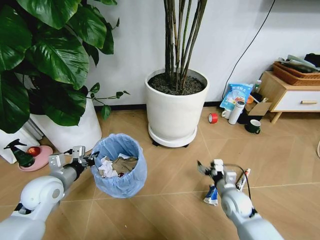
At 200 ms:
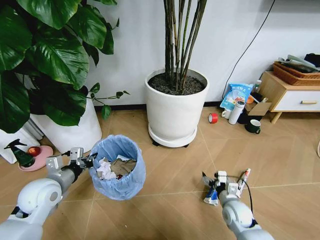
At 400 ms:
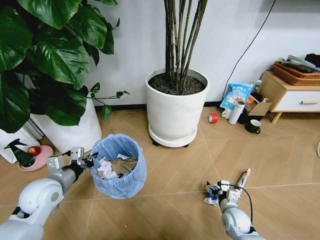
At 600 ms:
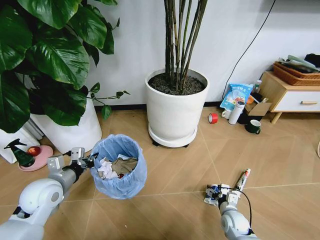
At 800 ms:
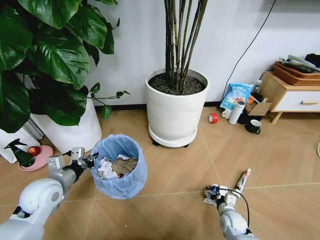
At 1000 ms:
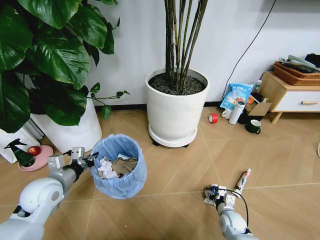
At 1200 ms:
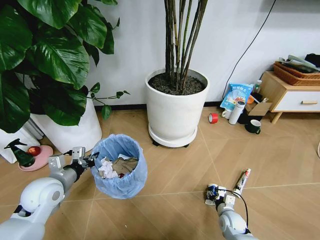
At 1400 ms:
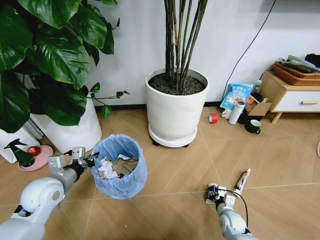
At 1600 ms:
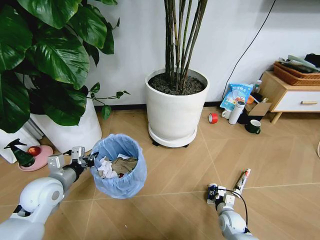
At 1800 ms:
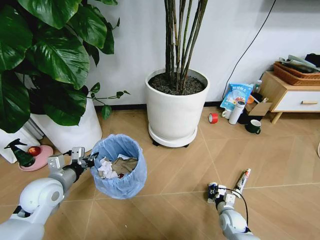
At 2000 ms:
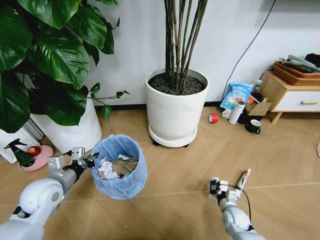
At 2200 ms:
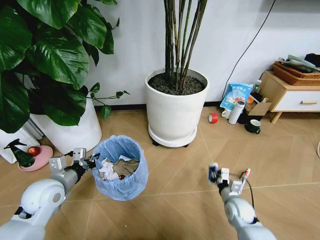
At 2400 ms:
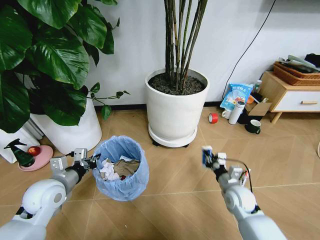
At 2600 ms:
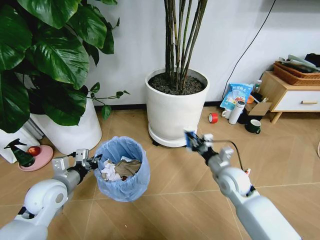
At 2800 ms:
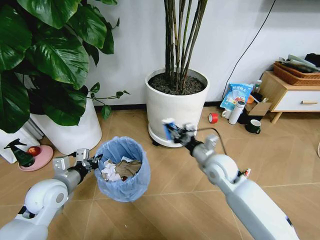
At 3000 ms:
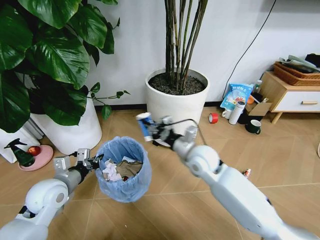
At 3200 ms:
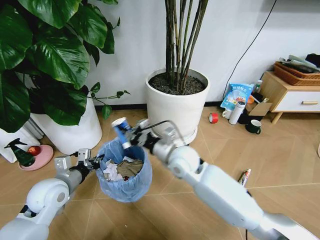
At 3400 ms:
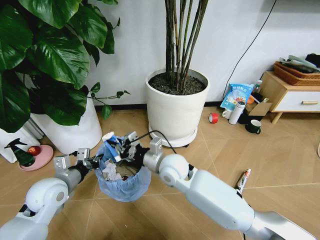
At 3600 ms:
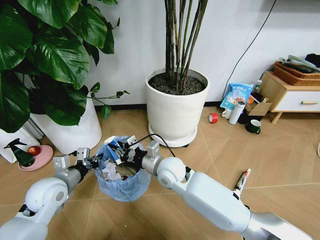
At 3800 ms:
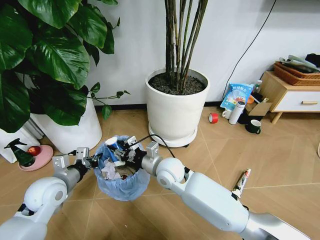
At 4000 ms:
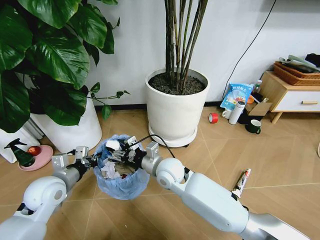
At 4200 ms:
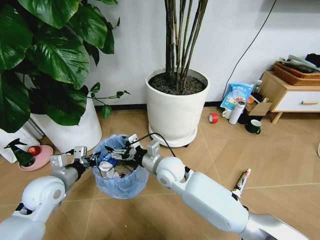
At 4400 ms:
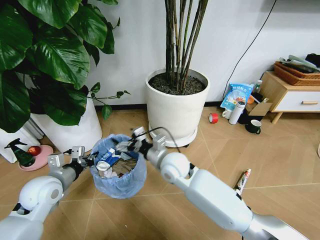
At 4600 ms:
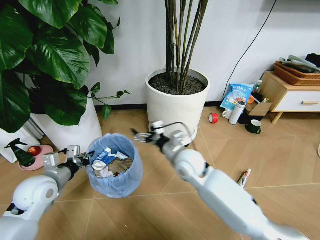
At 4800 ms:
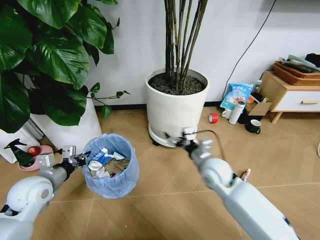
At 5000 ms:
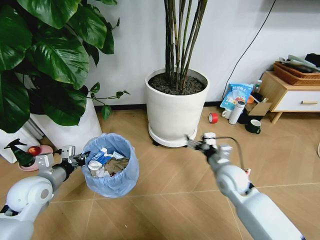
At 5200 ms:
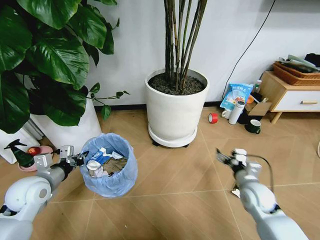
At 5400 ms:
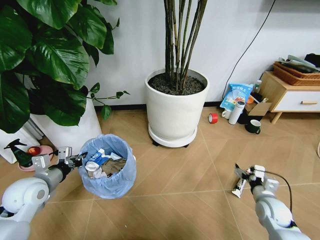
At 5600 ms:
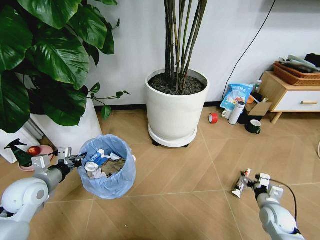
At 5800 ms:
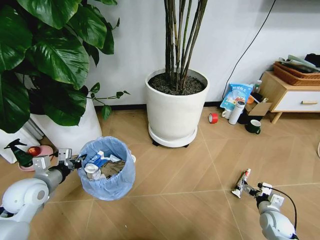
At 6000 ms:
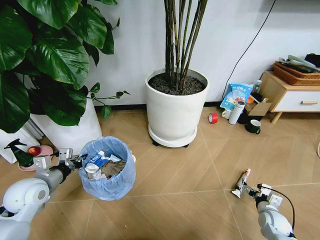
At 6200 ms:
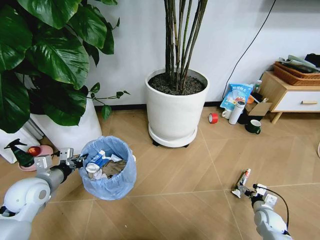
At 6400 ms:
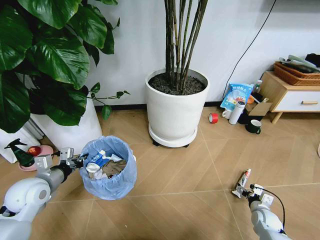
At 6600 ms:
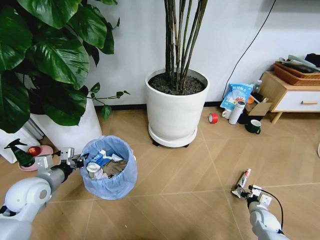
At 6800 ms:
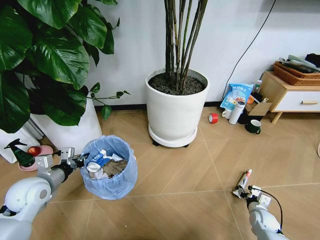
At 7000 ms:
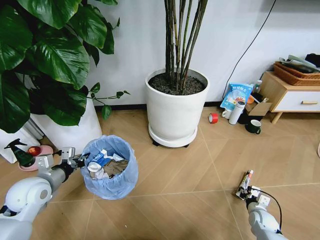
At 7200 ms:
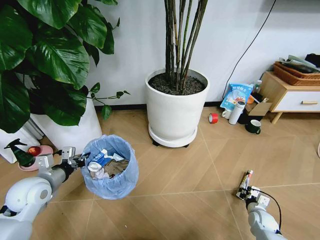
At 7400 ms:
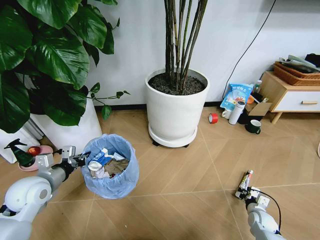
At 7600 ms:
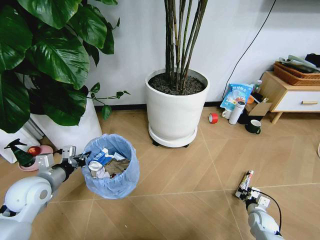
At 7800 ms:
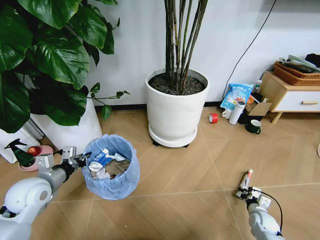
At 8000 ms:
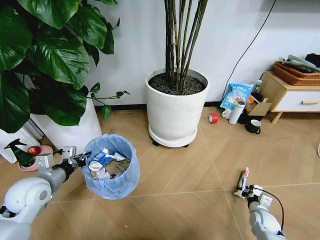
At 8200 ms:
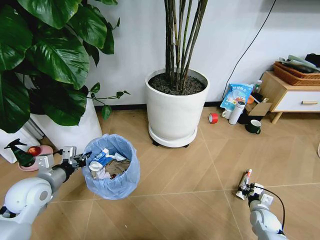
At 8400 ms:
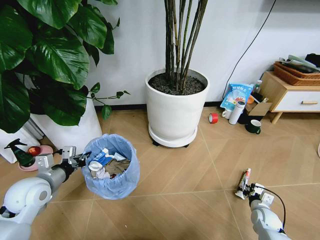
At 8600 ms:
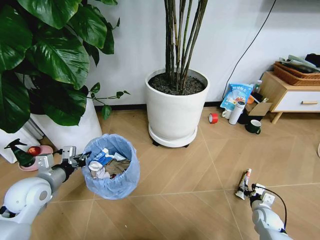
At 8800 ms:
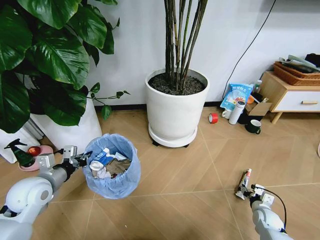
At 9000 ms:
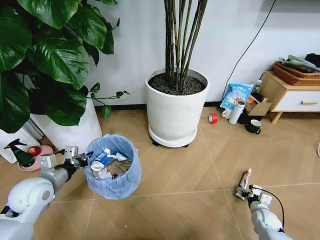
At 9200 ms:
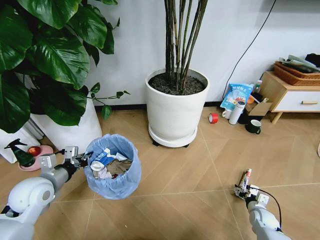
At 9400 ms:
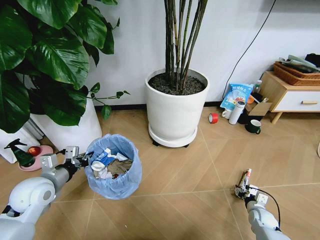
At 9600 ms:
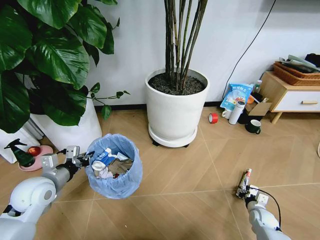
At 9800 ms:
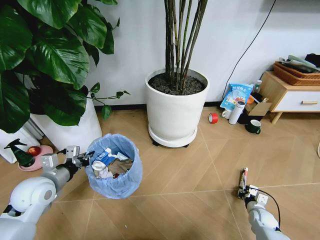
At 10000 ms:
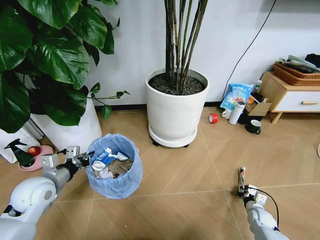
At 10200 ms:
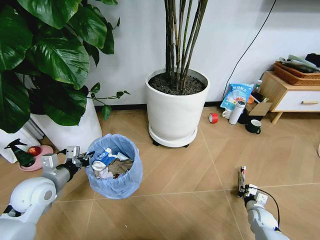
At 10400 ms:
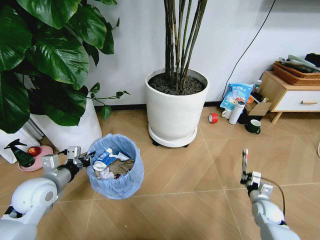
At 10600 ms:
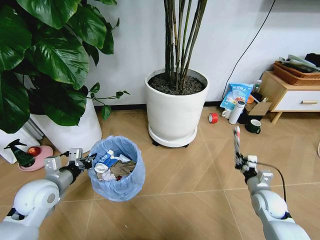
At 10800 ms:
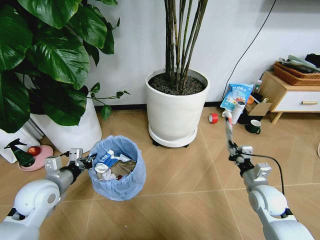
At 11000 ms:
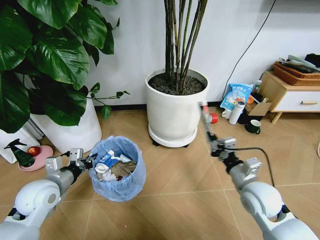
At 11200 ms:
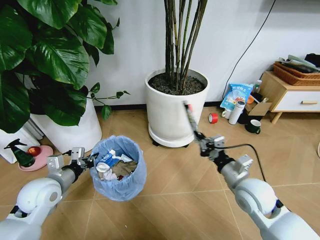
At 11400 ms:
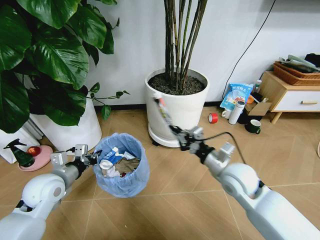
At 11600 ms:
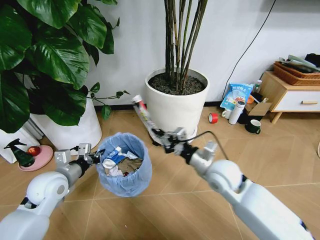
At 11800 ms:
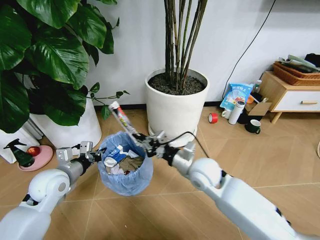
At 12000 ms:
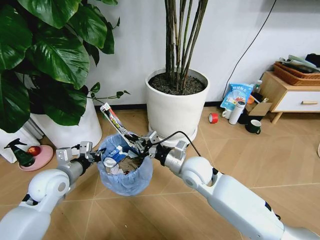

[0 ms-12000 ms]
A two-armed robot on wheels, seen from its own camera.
Task of the whole recording: Pick up the trash bin and place the garbage on the floor into it.
0 ms to 1600 ms: The right gripper is displaced downward by roughly 15 cm, and closes.
1600 ms to 3000 ms: The right gripper shifts approximately 35 cm upward and to the left.
3000 ms to 4400 ms: The right gripper goes approximately 10 cm to the left, and opens its fingers.
4400 ms to 6000 ms: The right gripper shifts approximately 50 cm to the right and downward.
6000 ms to 7600 ms: The right gripper shifts by about 5 cm, and closes.
7600 ms to 9000 ms: The right gripper opens up.
9000 ms to 10400 ms: The right gripper heads upward, covering roughly 5 cm, and closes.
10400 ms to 12000 ms: The right gripper is displaced to the left and upward by approximately 40 cm.

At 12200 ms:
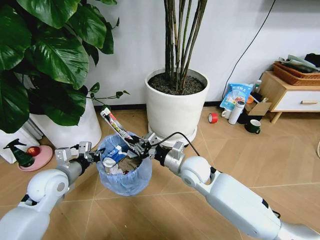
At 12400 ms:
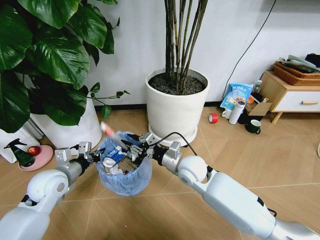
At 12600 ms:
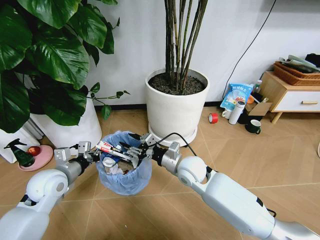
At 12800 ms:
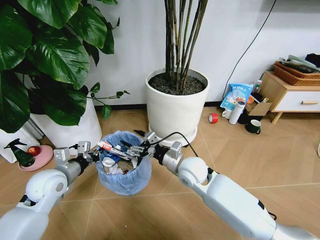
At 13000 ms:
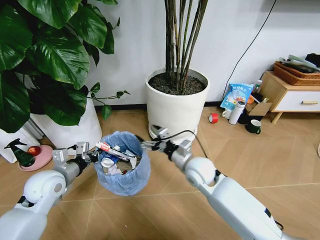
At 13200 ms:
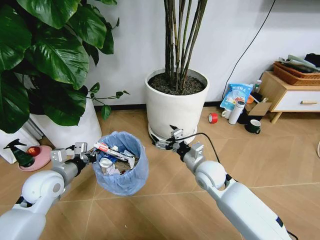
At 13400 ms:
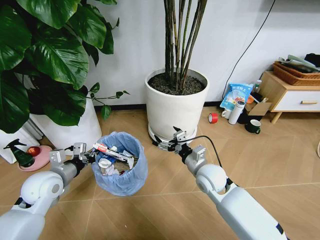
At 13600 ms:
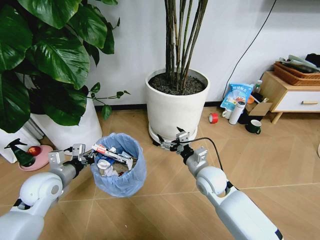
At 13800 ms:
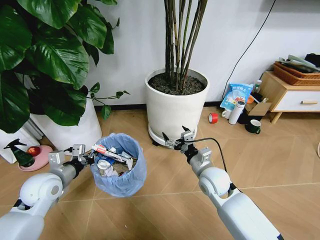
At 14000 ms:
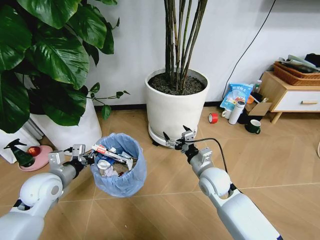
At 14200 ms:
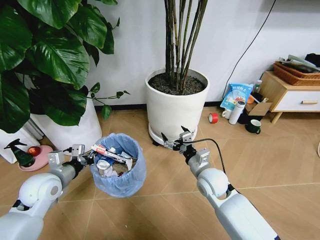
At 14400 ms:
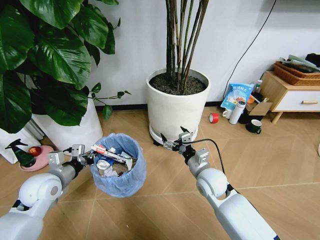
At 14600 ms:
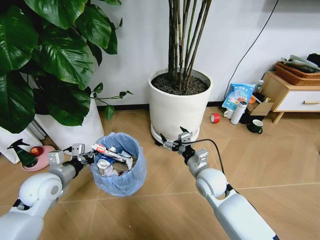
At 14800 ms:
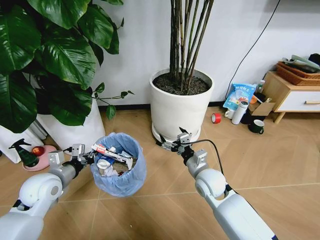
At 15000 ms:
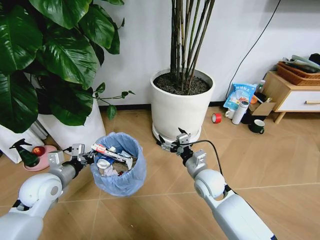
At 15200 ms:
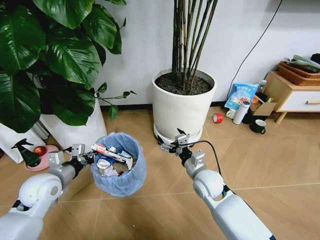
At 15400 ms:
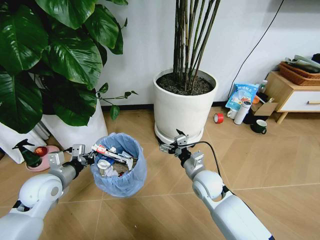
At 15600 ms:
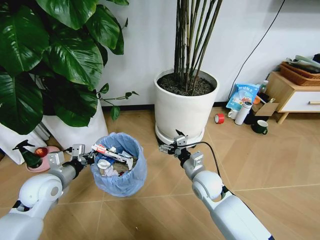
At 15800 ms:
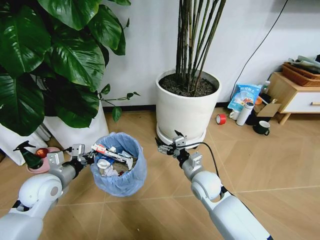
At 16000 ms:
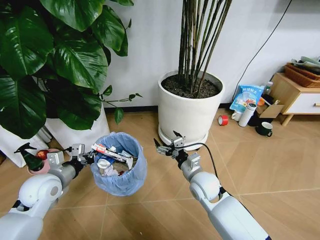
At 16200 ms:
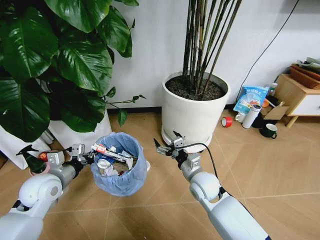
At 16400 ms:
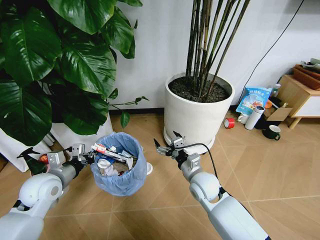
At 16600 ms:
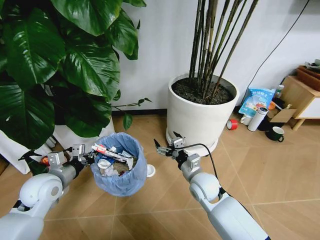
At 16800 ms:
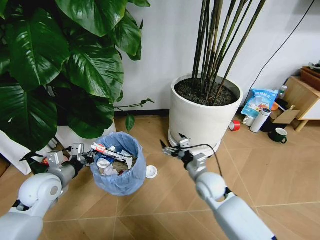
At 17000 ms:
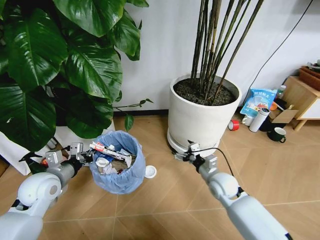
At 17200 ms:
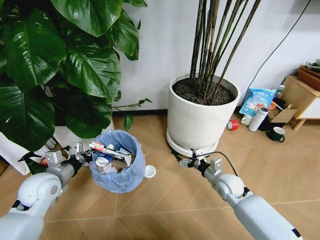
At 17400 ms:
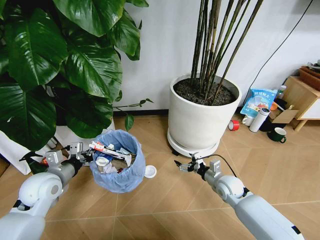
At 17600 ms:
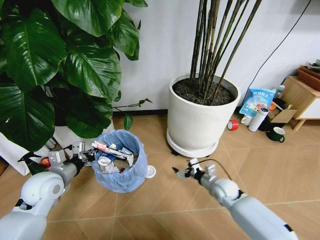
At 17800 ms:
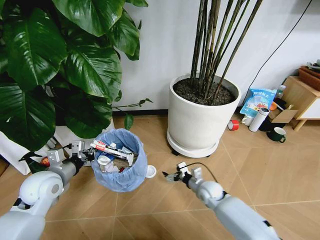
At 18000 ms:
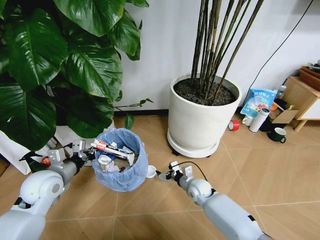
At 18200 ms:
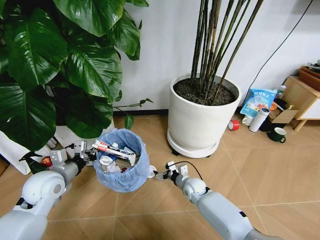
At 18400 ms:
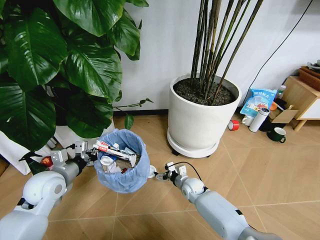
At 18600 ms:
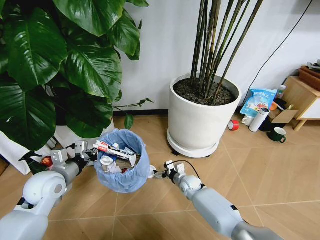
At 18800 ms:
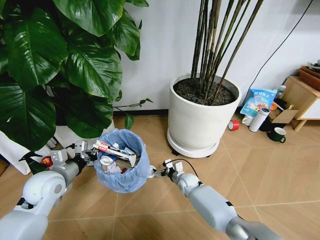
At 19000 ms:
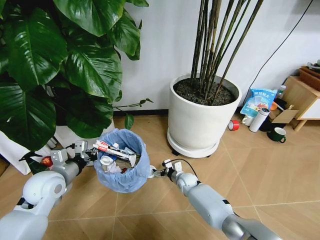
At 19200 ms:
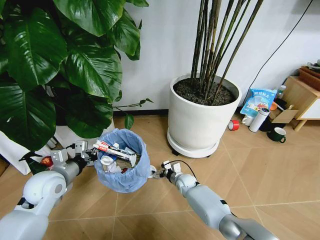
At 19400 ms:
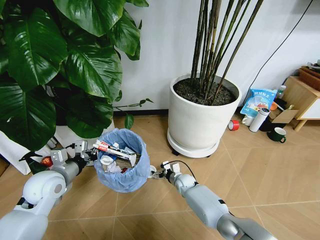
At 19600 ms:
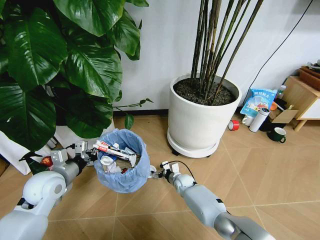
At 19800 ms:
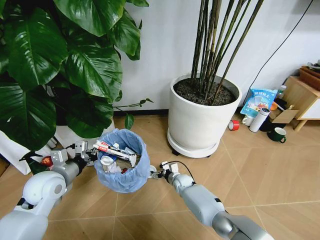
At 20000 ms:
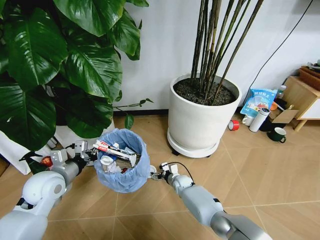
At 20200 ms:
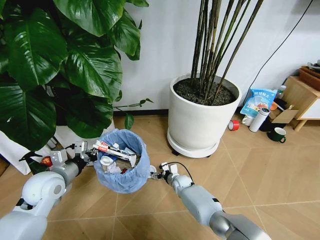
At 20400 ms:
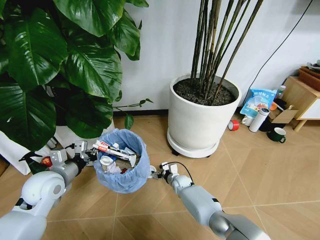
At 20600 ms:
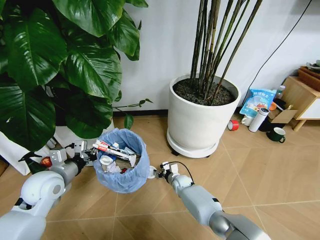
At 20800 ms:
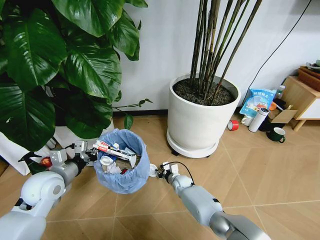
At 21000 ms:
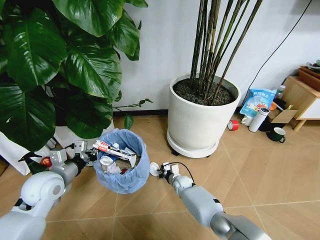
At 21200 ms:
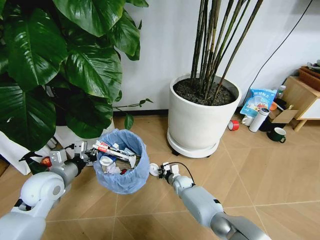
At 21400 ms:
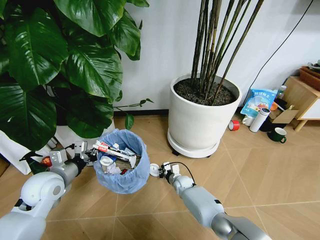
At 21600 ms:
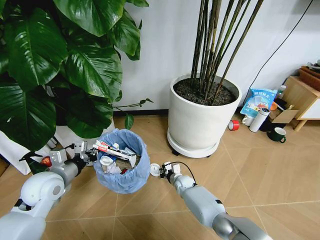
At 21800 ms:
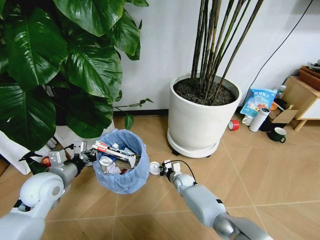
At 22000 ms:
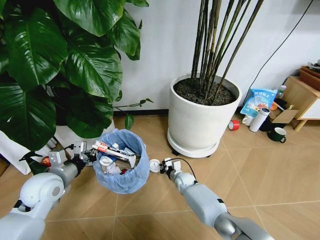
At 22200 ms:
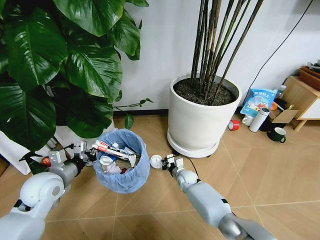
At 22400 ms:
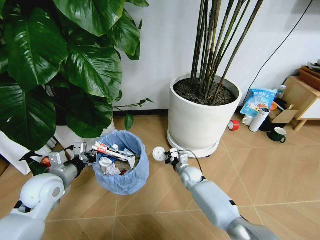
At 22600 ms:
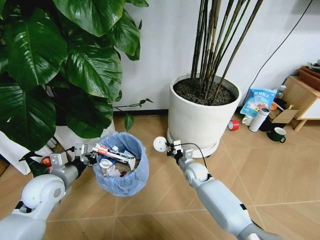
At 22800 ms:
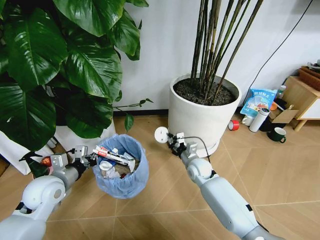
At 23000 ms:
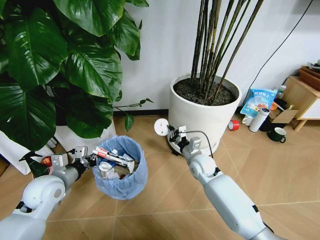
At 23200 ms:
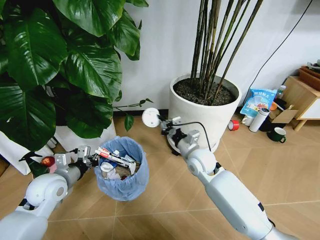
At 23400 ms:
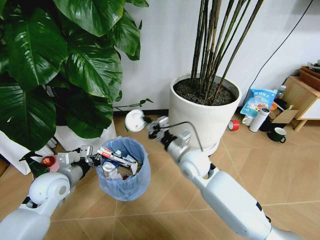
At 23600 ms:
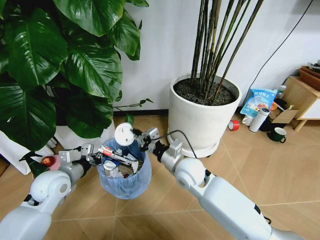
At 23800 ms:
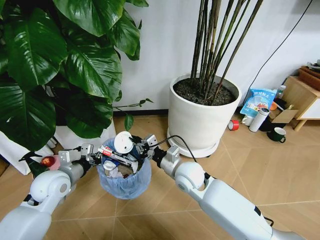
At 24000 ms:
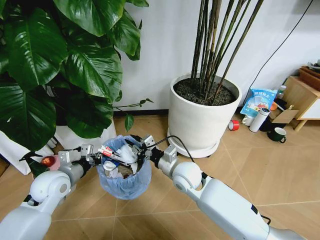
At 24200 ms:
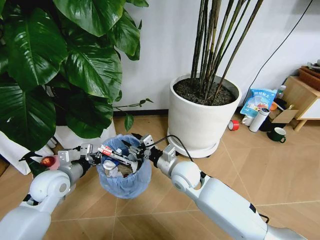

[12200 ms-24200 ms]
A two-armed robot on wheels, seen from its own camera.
Task of the whole recording: Pick up the trash bin and place the garbage on the floor into it.
12200 ms to 13800 ms: The right gripper heads to the right, covering about 5 cm, and opens.
16600 ms to 18200 ms: The right gripper goes roughly 15 cm downward.
18200 ms to 19800 ms: The right gripper is displaced downward by roughly 5 cm.
19800 ms to 21200 ms: The right gripper closes.
21200 ms to 22600 ms: The right gripper heads upward, covering roughly 10 cm.
22600 ms to 24200 ms: The right gripper moves upward, backward and to the left, some 20 cm, and opens.
